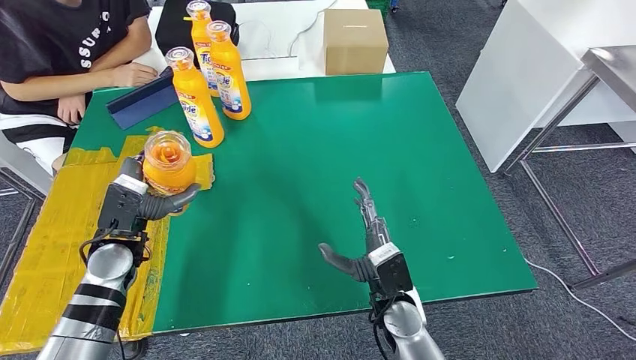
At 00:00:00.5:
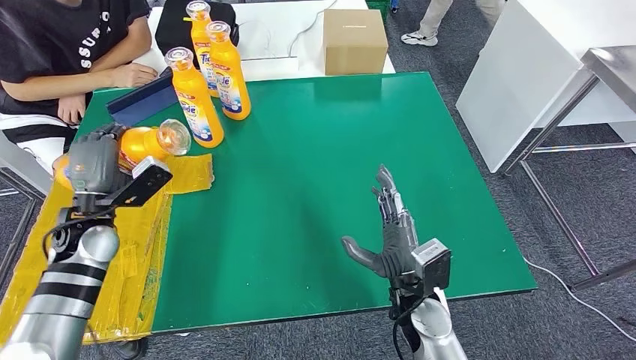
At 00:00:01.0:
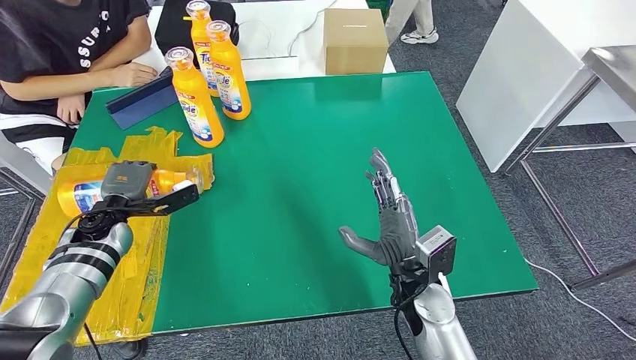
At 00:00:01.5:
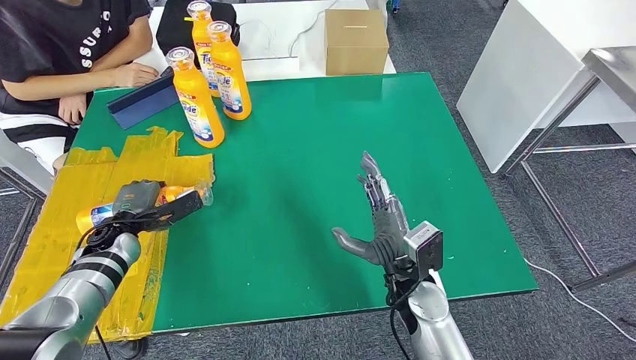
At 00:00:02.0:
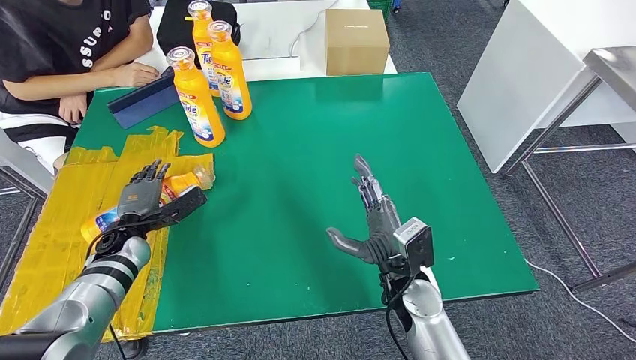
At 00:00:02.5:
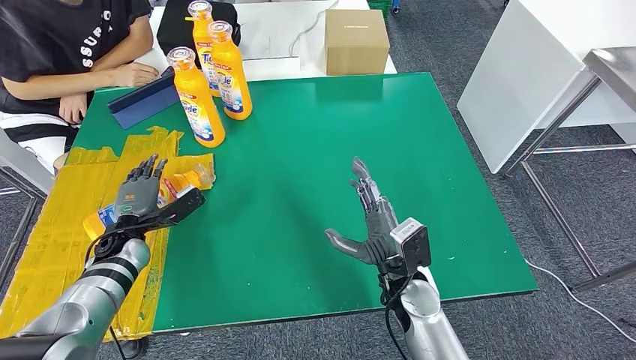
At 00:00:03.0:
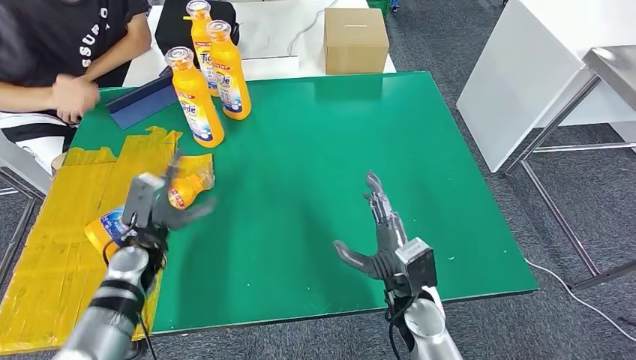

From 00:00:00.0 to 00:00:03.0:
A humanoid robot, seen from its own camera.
Step, from 00:00:00.0 to 00:00:03.0: Flip the bottle to face forward.
From 00:00:00.0 to 00:00:01.5: The left hand shifts about 10 cm downward and to the left; the right hand changes place by about 5 cm.
From 00:00:01.5 to 00:00:03.0: The left hand travels to the right by roughly 5 cm.
